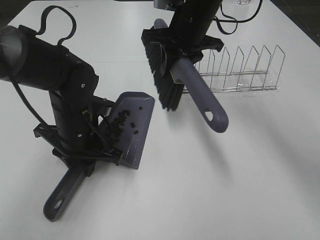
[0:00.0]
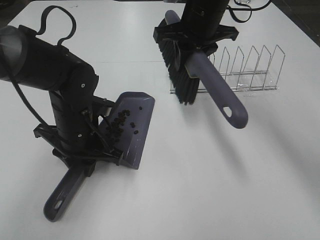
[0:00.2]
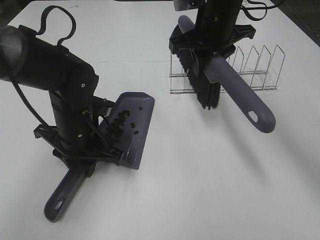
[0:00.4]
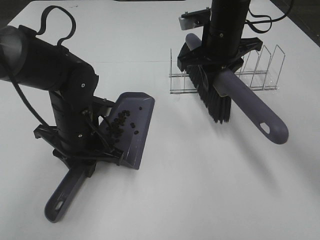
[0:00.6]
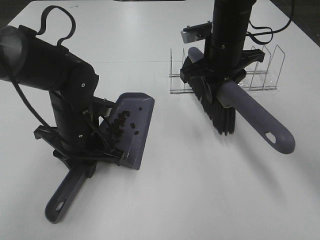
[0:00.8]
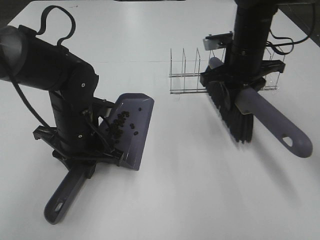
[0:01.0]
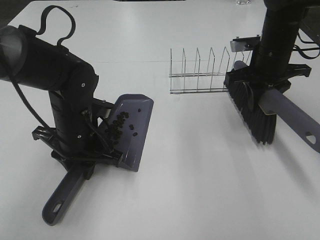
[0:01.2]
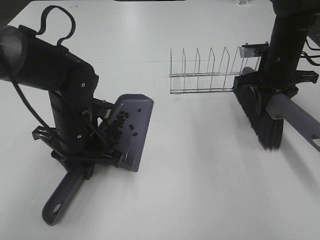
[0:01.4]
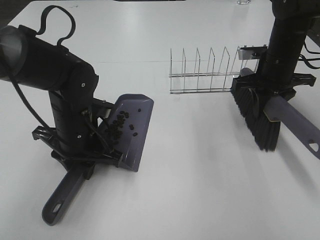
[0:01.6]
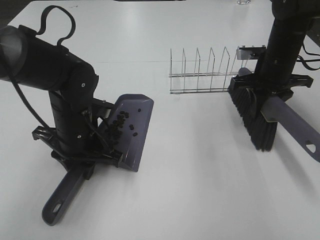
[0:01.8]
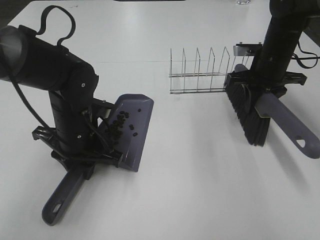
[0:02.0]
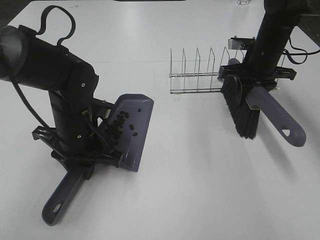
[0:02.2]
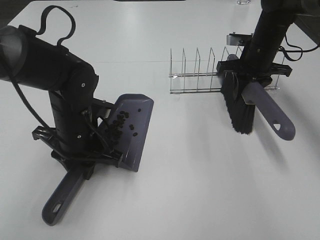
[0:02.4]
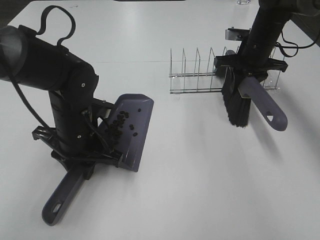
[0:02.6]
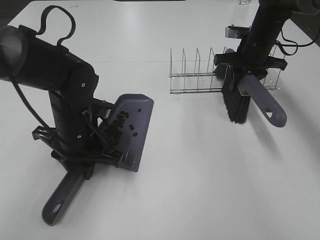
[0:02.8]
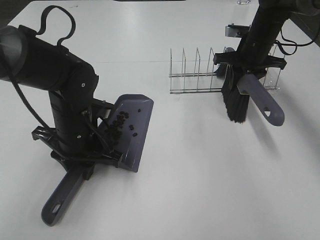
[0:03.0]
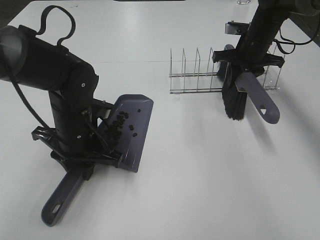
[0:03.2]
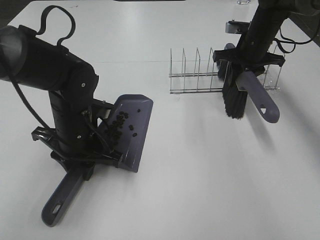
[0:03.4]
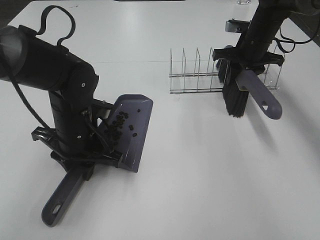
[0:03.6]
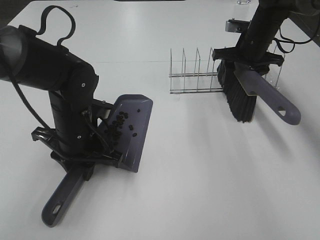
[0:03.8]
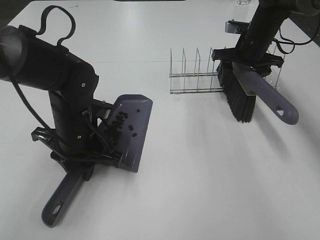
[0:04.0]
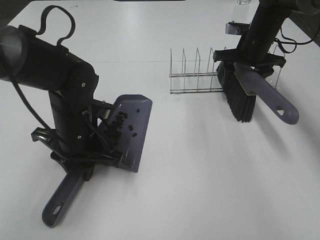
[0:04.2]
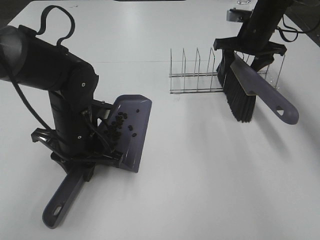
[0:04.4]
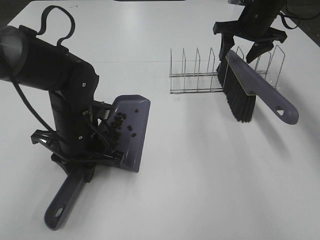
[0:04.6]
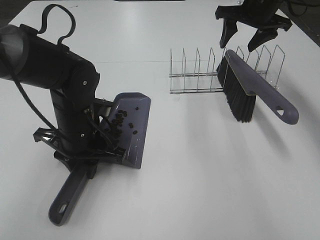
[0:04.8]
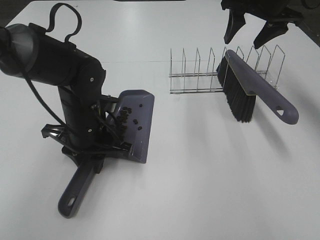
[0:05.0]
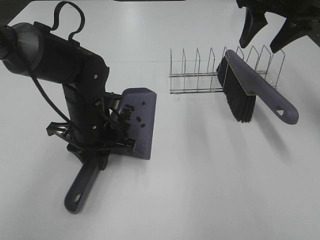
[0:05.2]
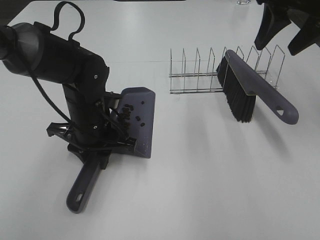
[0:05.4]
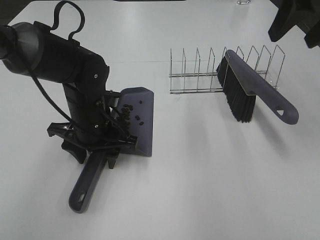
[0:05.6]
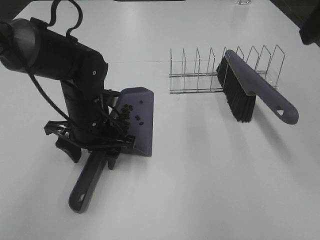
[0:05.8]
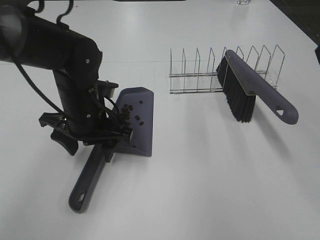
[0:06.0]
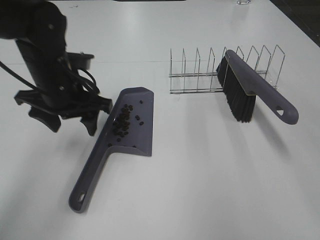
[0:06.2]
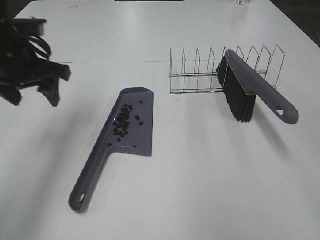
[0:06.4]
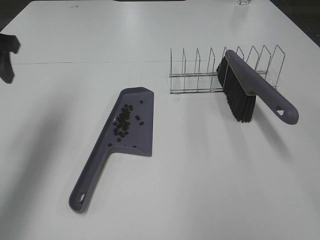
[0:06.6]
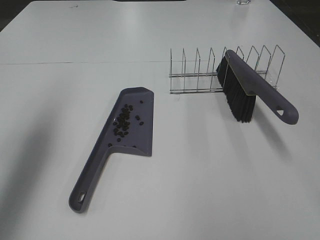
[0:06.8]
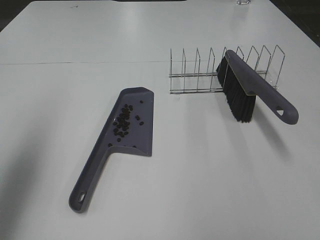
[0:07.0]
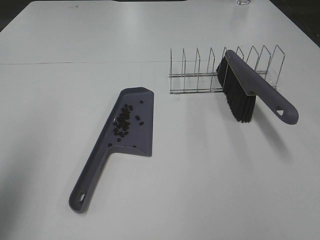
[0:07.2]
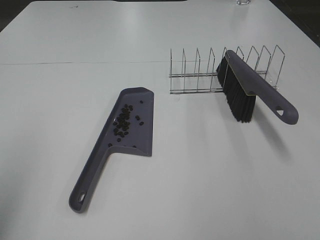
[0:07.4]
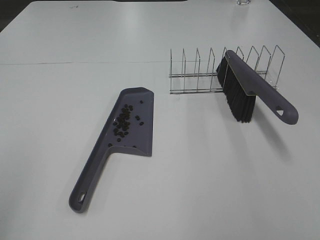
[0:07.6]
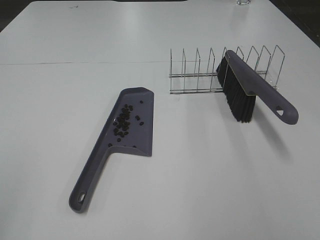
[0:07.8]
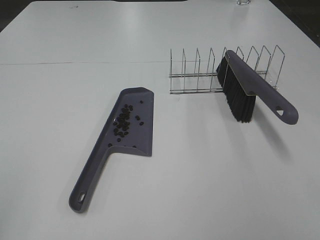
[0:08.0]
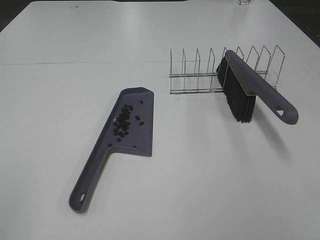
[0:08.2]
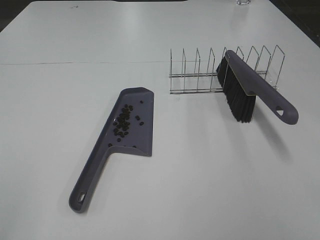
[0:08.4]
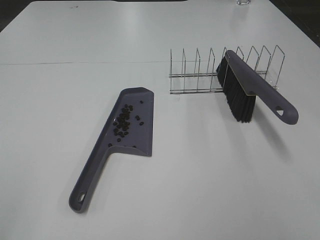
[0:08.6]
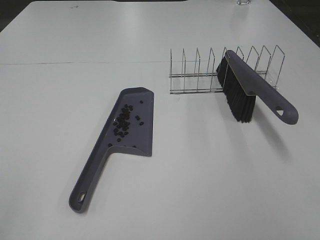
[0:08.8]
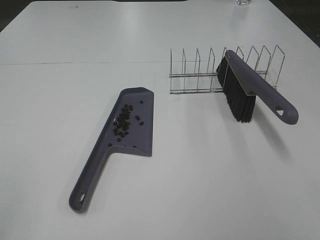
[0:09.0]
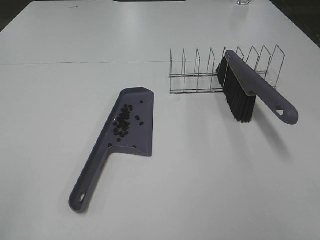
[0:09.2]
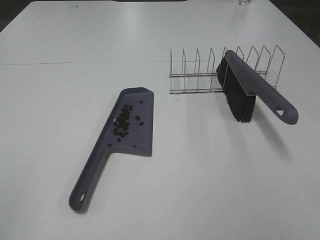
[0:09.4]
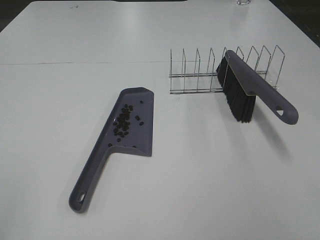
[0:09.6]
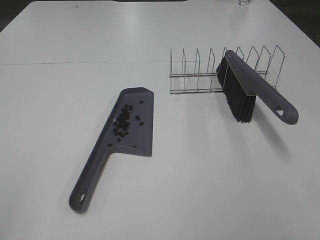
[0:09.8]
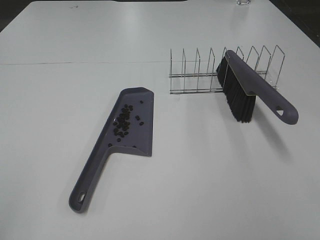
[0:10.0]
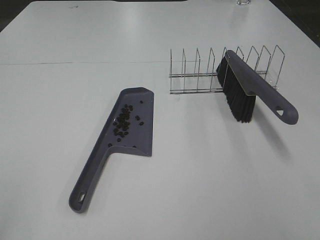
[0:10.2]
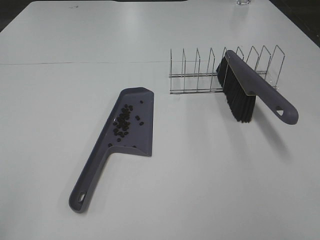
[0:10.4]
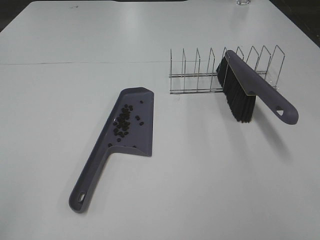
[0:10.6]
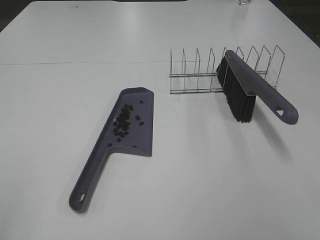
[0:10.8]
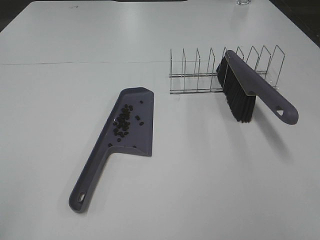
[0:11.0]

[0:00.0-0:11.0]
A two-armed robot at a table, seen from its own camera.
Task of the whole recording: Sweep Coffee Bean.
Step, 0:00.0 to 0:04.2: Right hand:place the broom on the rack.
0:00.0 to 0:01.6: The right gripper is displaced to the right and downward by some 20 cm.
0:01.6 to 0:03.2: The right gripper heads forward, covering about 10 cm.
0:03.2 to 0:04.8: The right gripper goes some 10 cm upward, and opens its fingers.
0:04.8 to 0:06.2: The left gripper goes about 5 cm upward, and opens up, while the right gripper goes some 35 cm backward.
0:06.2 to 0:07.8: The left gripper is displaced backward, to the left and upward by some 40 cm. Meanwhile the right gripper heads backward, covering some 20 cm.
0:09.4 to 0:11.0: The two grippers keep their place.
